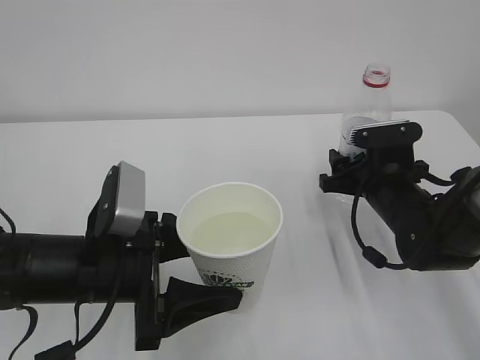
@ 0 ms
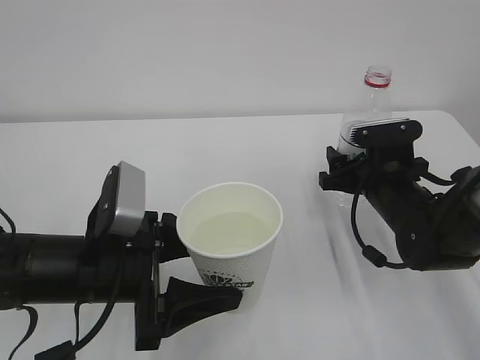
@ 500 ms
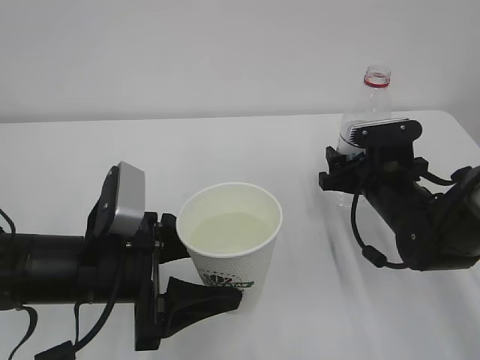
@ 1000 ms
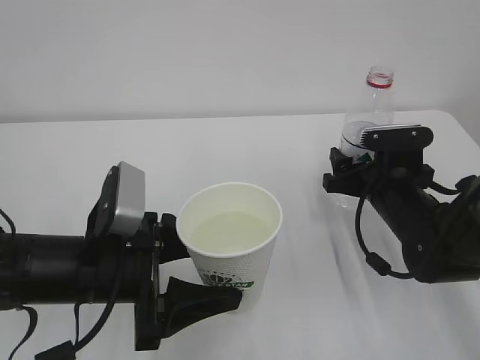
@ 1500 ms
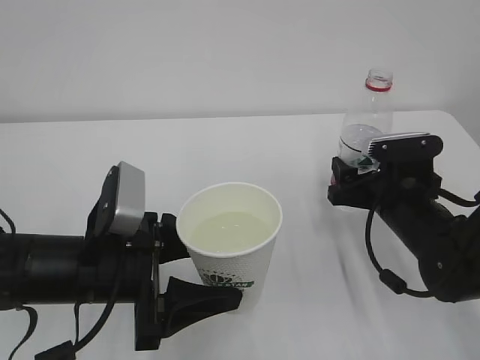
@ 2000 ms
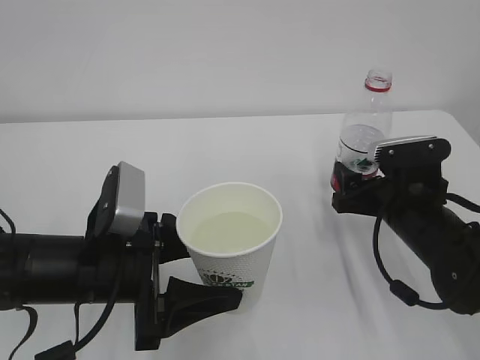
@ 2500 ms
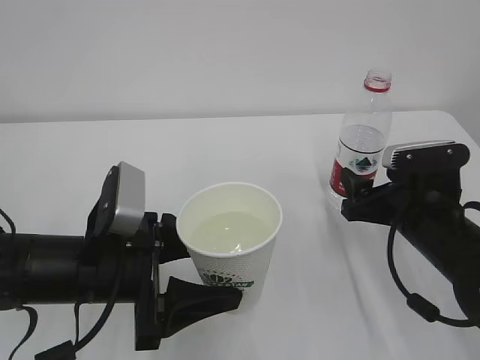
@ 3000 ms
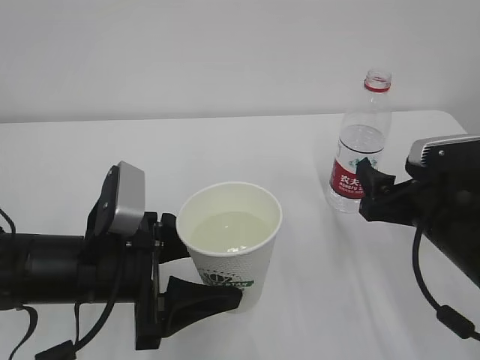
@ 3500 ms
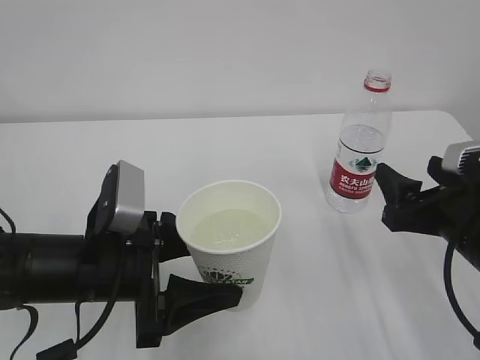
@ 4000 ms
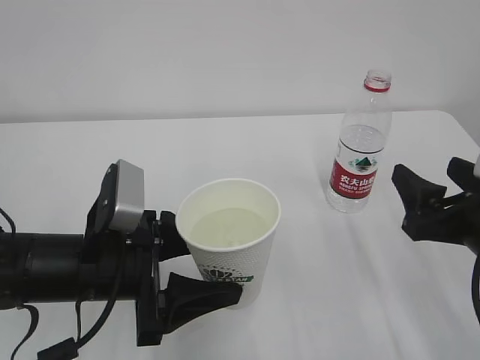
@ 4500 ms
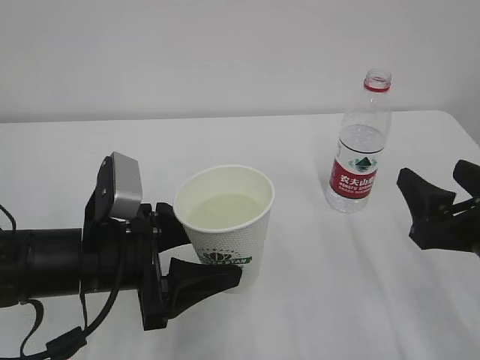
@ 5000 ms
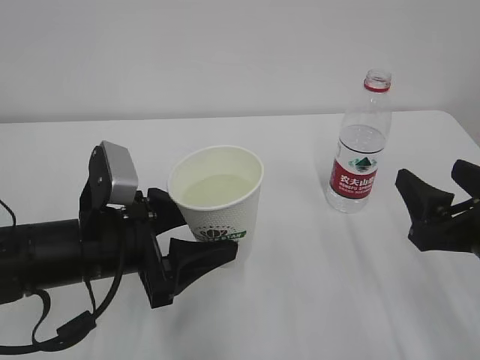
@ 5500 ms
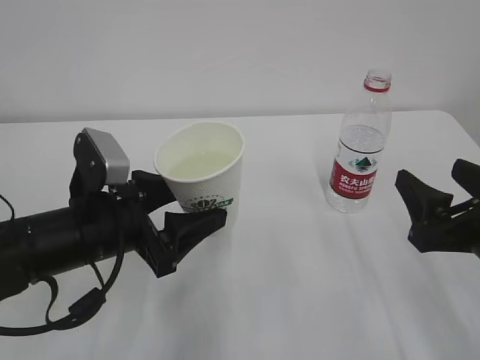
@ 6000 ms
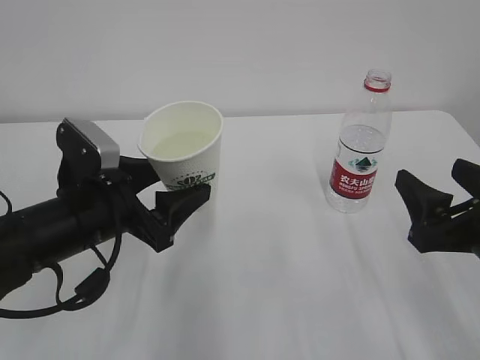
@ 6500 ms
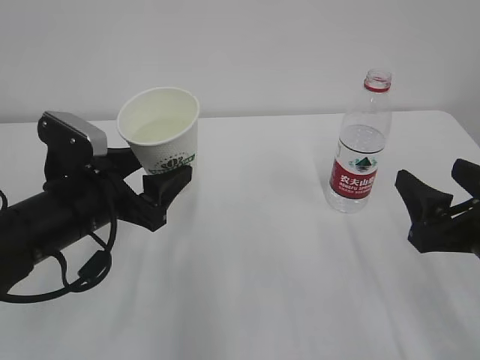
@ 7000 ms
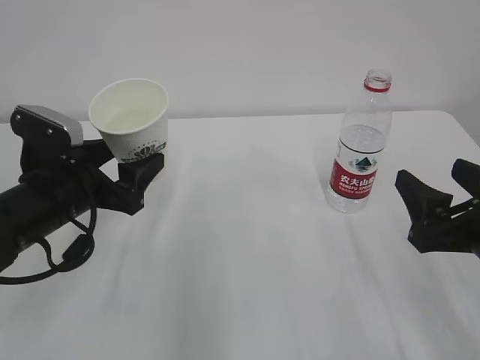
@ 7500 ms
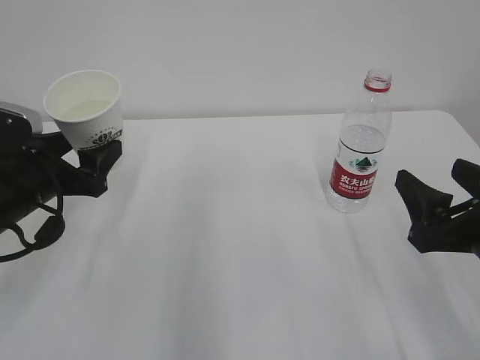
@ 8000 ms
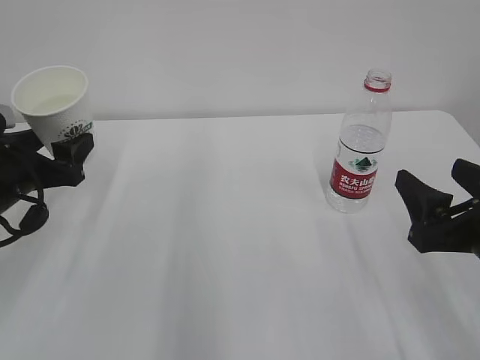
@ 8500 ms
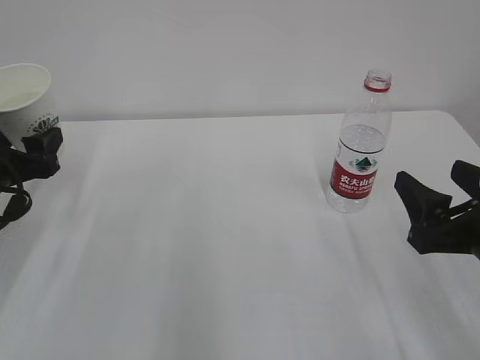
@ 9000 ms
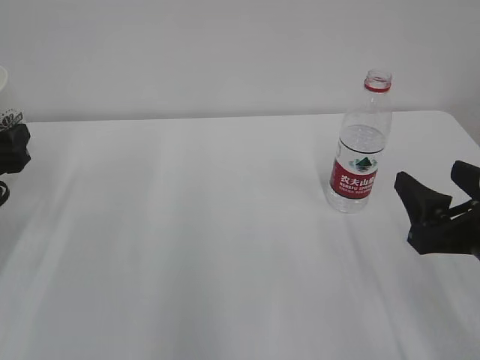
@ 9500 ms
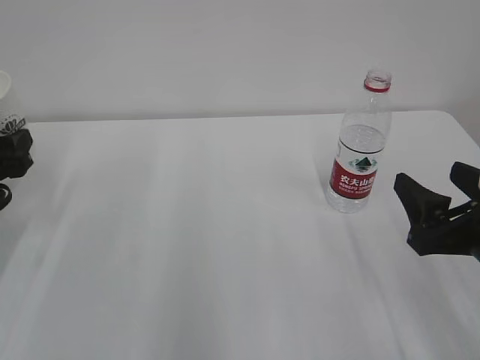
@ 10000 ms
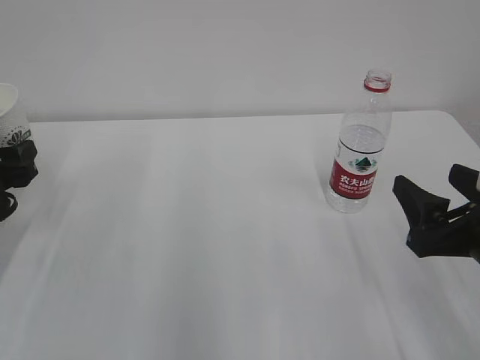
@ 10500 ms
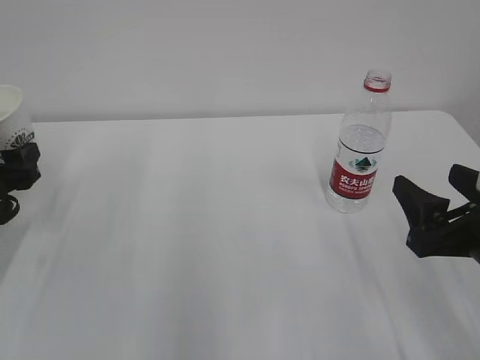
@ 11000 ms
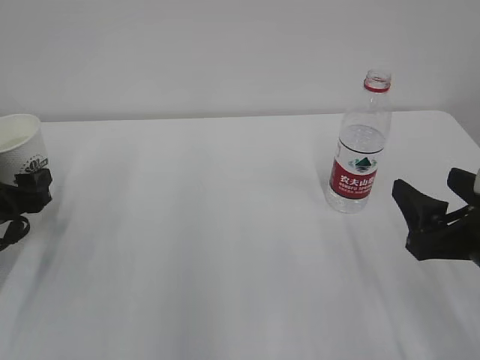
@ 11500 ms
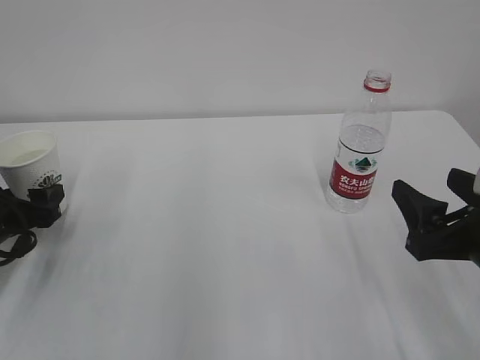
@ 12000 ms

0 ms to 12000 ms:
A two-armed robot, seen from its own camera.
0 ms to 2000 ms: The right gripper opens its fingers.
2000 ms to 4000 ms: The right gripper travels backward and upward by approximately 10 cm.
6000 ms to 8000 ms: The left gripper heads to the left and forward, covering some 10 cm.
8000 ms to 10000 ms: The left gripper moves to the left, approximately 10 cm.
10000 ms to 12000 ms: The left gripper heads downward, covering about 5 cm.

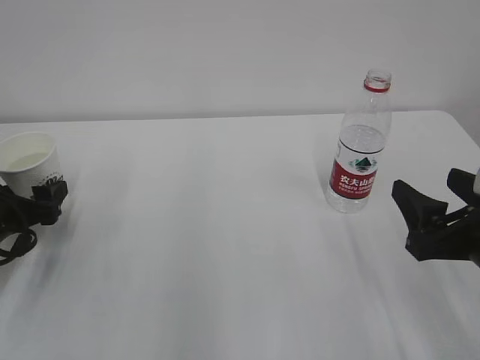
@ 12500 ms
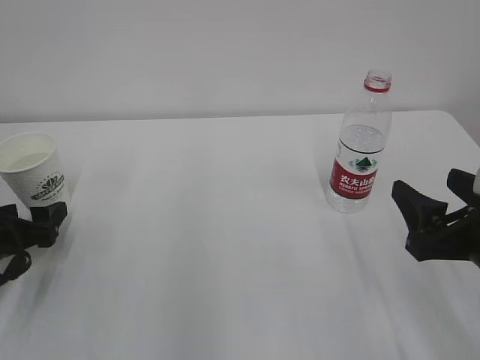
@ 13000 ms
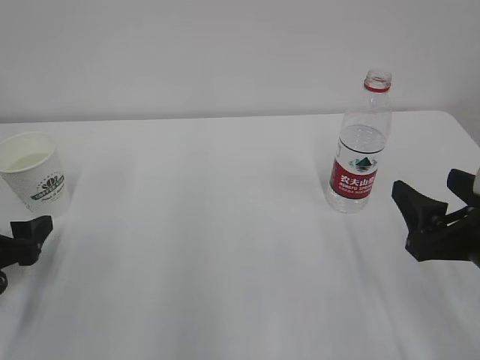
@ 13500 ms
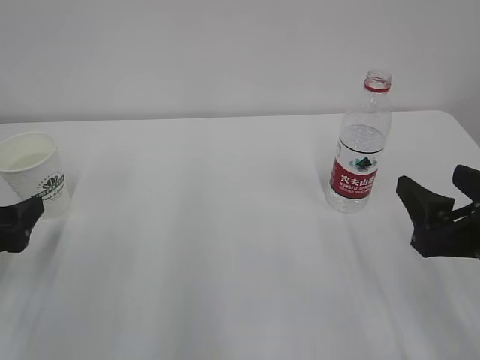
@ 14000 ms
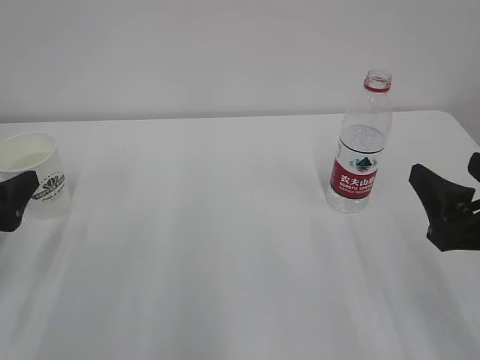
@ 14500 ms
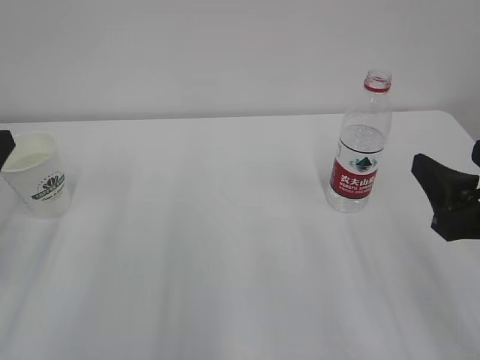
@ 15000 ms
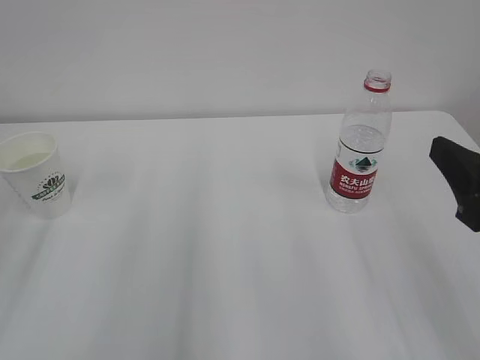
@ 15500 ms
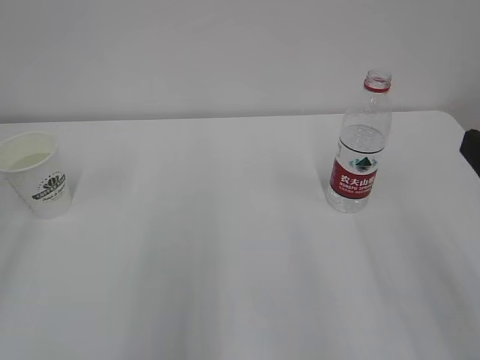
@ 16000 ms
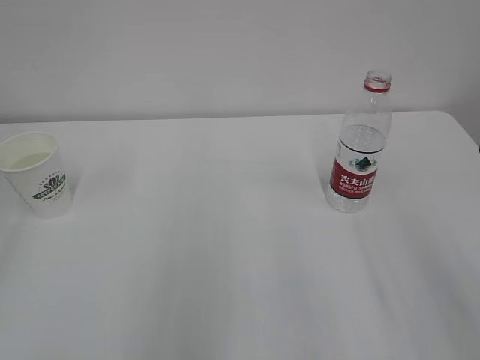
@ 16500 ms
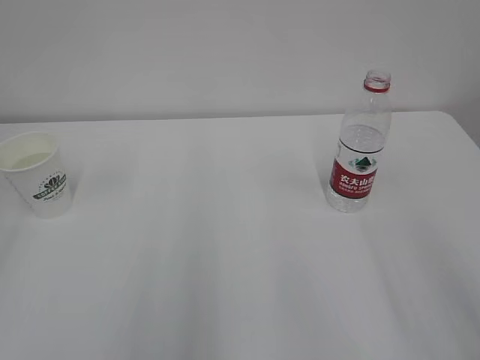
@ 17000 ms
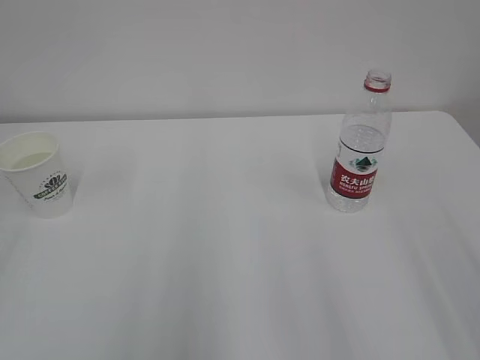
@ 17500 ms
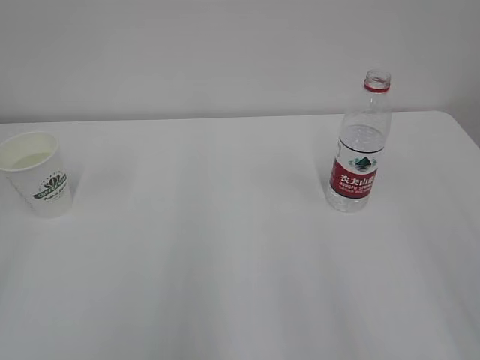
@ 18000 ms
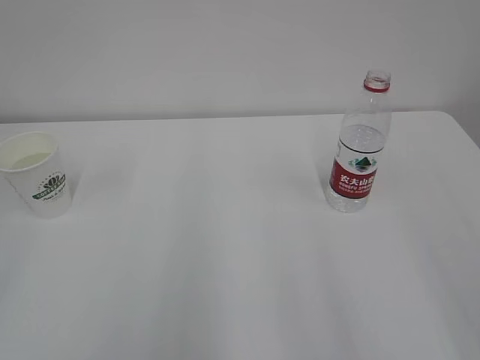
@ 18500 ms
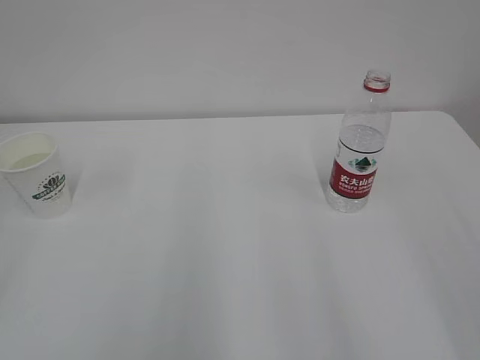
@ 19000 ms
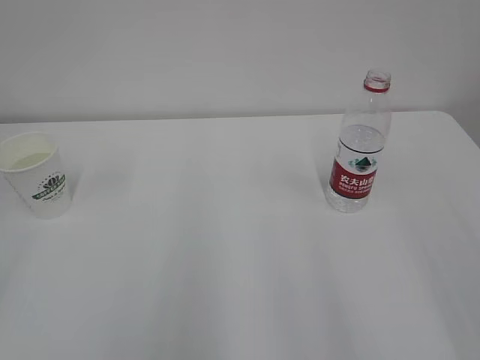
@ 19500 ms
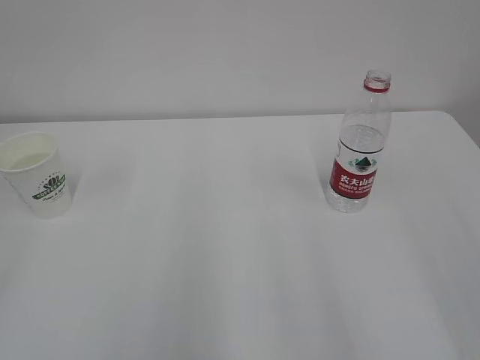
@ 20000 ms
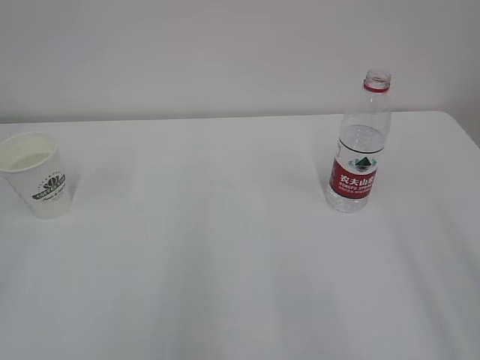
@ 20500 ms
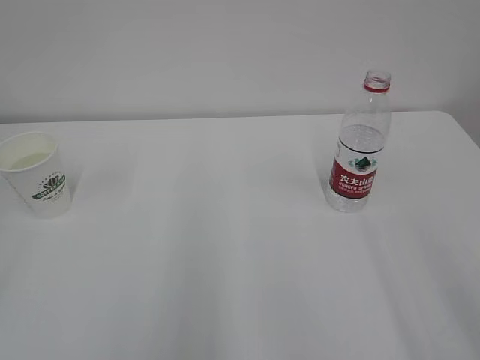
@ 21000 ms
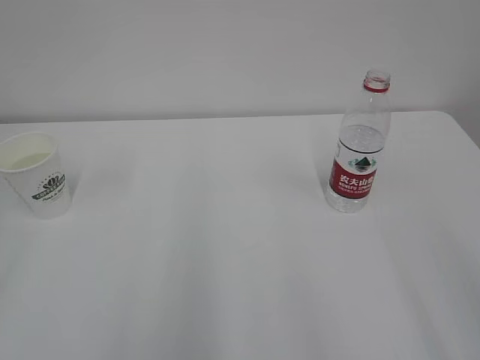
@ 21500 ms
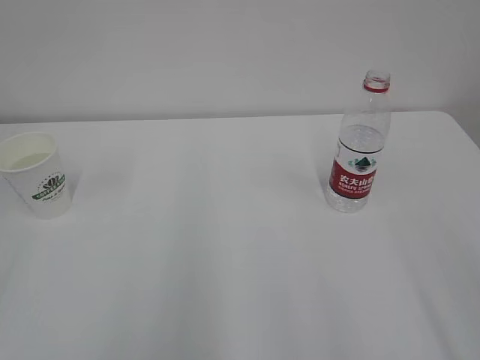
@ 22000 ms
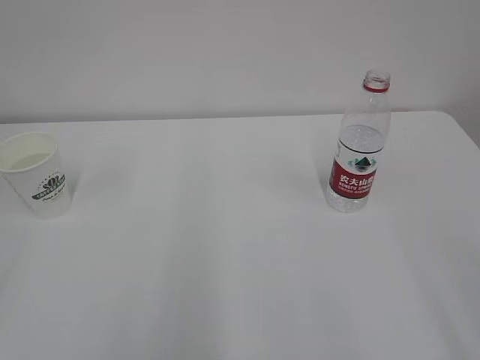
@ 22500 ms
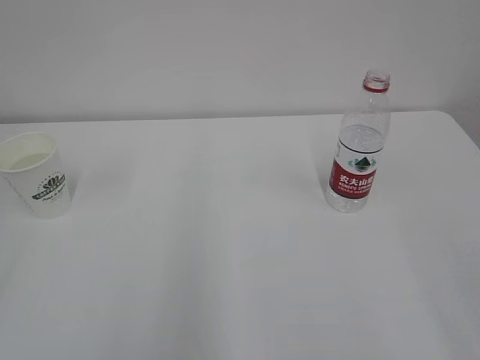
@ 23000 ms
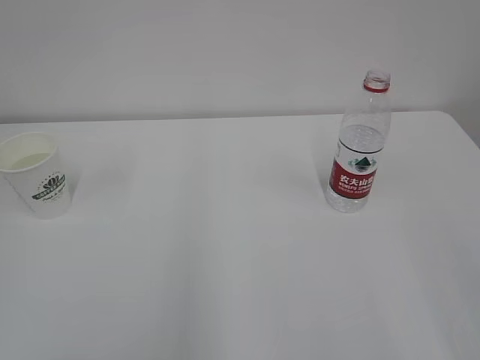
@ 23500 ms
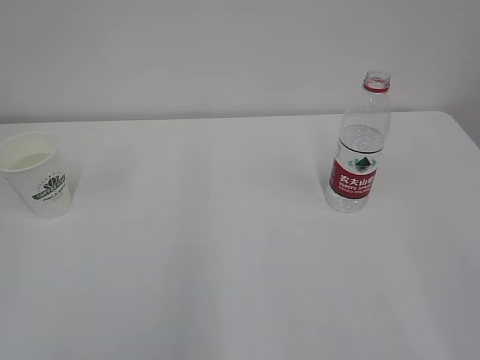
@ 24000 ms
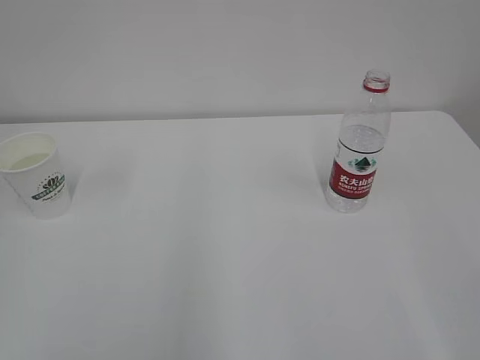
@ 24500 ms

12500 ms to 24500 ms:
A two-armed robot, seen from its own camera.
12500 ms to 14500 ms: The left gripper heads backward and upward, covering approximately 10 cm.
14500 ms to 16500 ms: The left gripper goes roughly 25 cm upward and backward. The right gripper goes approximately 10 cm upward and backward.

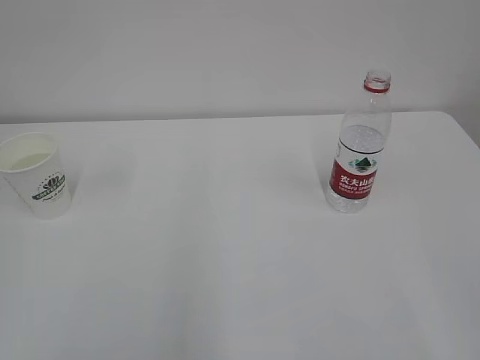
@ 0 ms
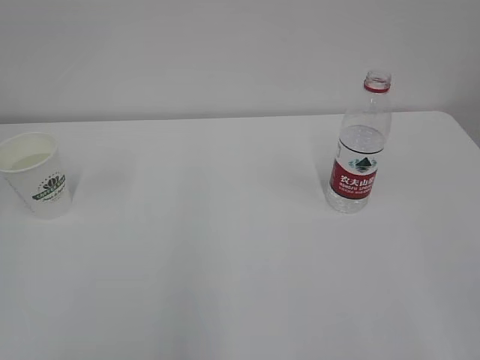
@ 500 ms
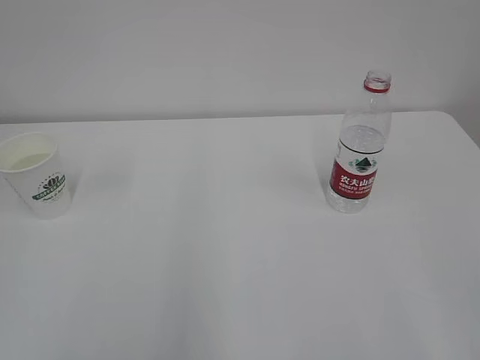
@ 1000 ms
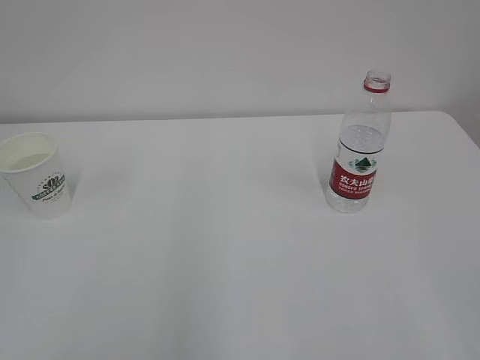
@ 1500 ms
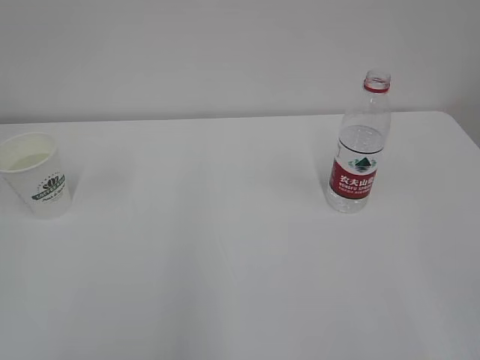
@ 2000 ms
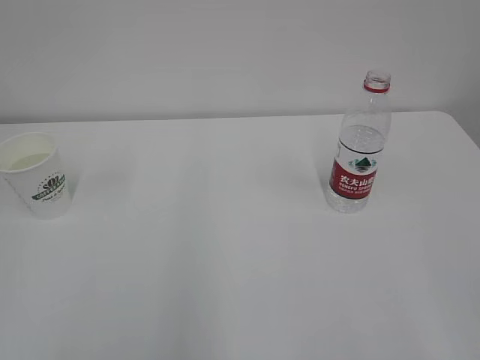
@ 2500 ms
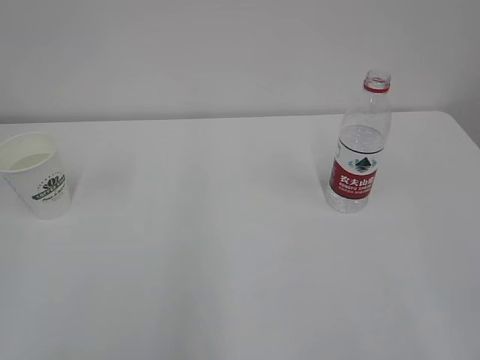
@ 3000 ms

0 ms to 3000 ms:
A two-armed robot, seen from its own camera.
0 ms to 3000 ms: Neither gripper changes place.
